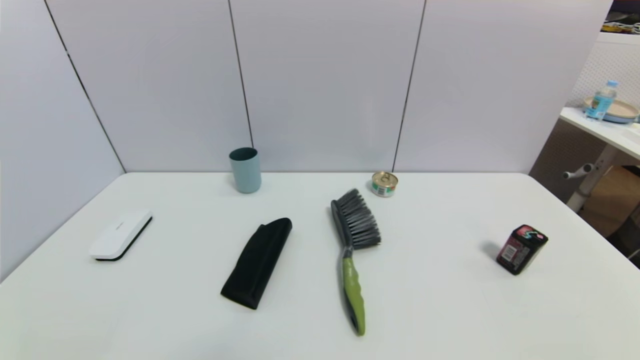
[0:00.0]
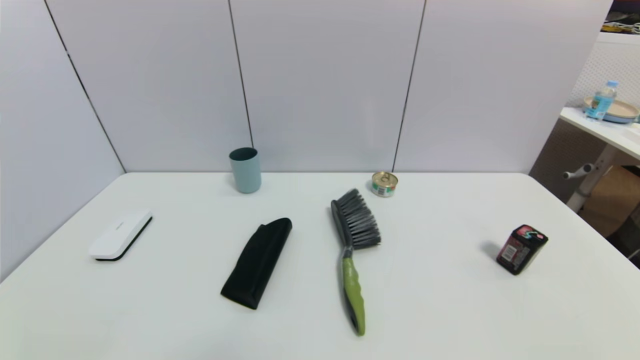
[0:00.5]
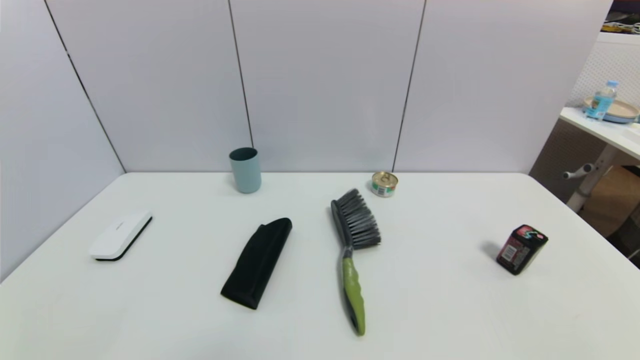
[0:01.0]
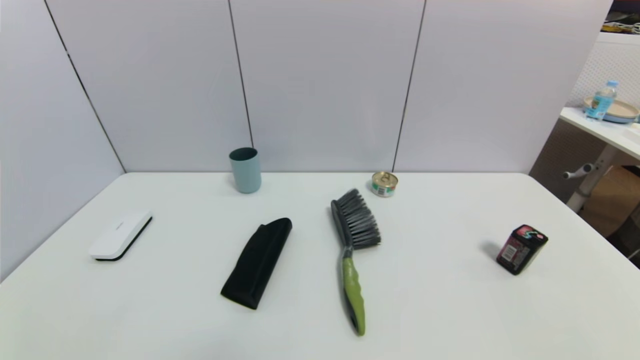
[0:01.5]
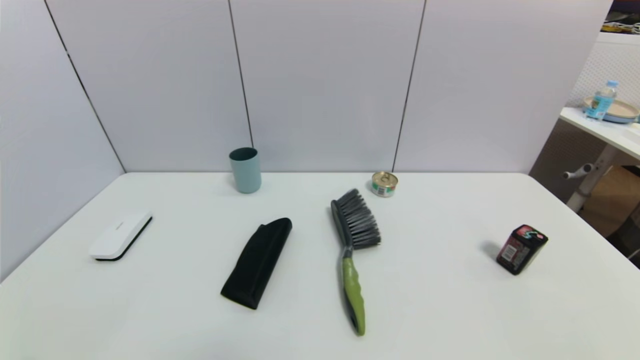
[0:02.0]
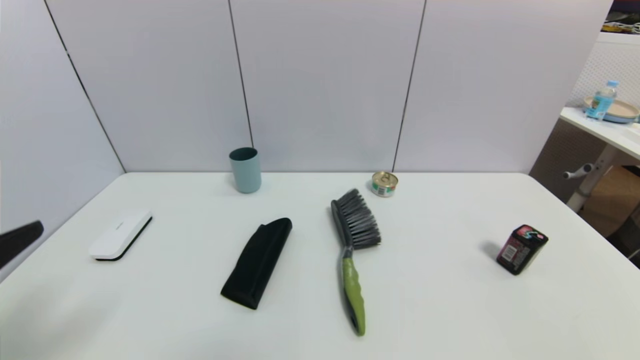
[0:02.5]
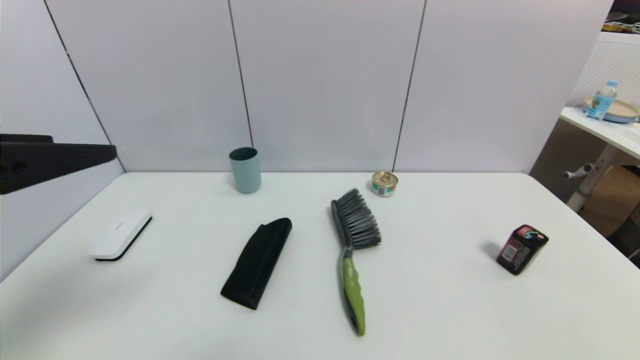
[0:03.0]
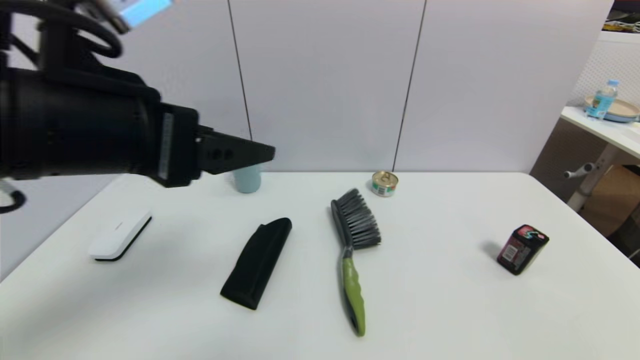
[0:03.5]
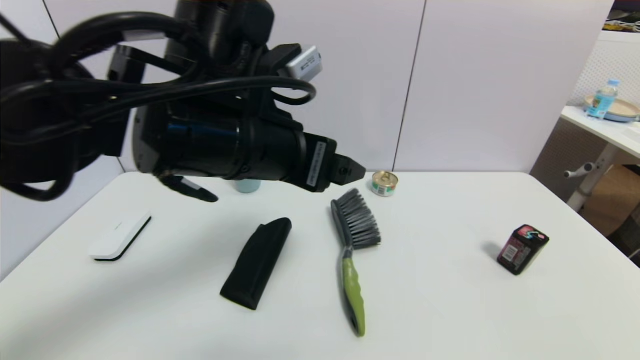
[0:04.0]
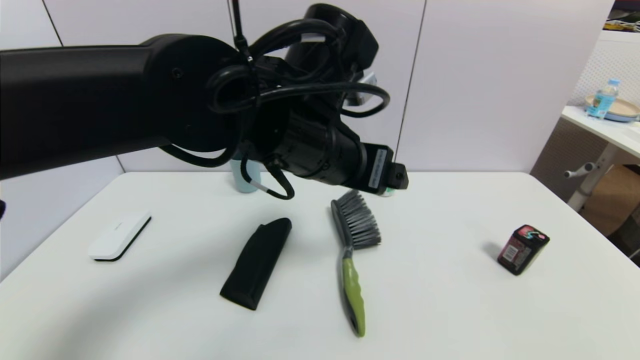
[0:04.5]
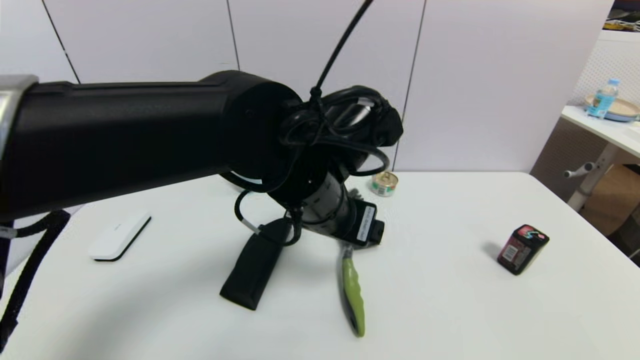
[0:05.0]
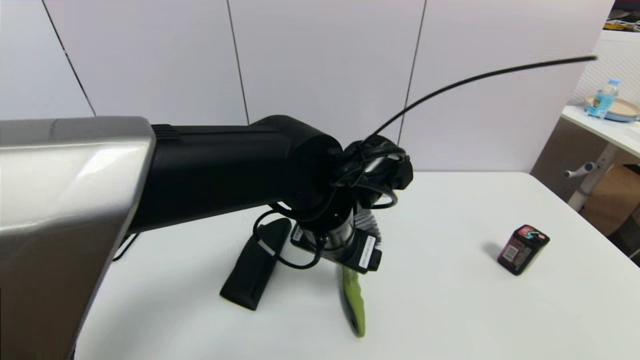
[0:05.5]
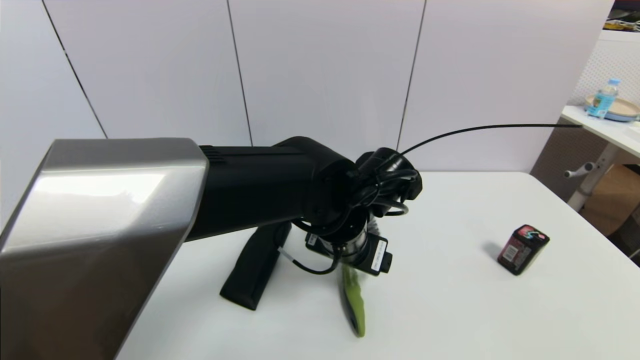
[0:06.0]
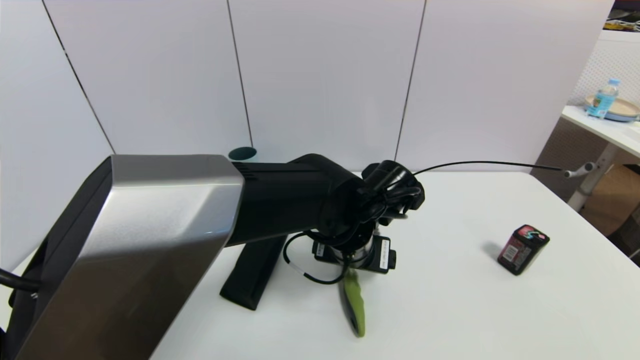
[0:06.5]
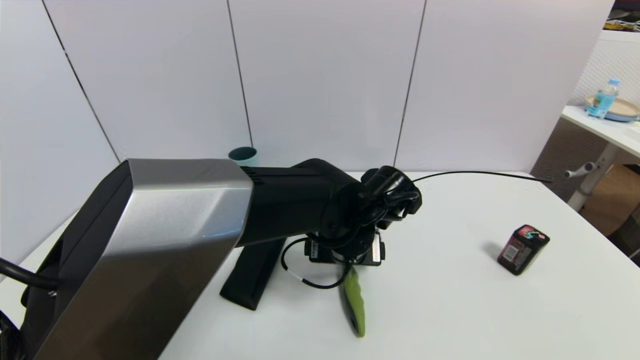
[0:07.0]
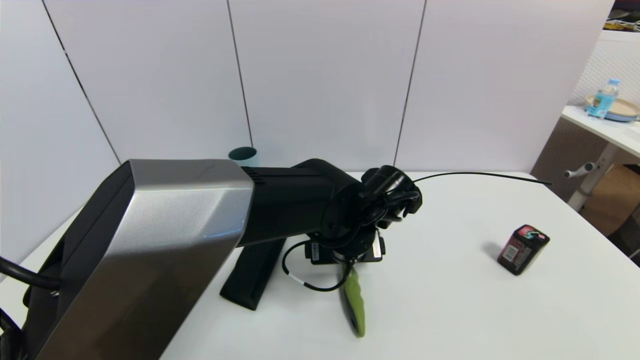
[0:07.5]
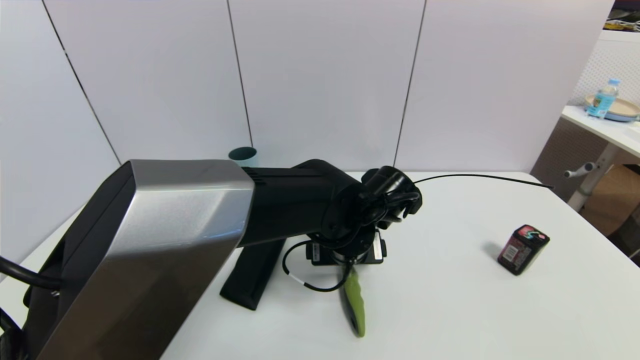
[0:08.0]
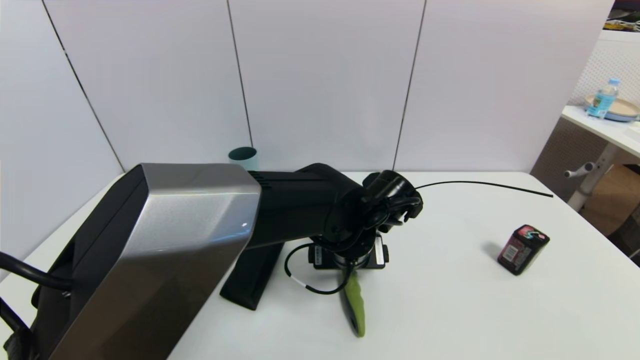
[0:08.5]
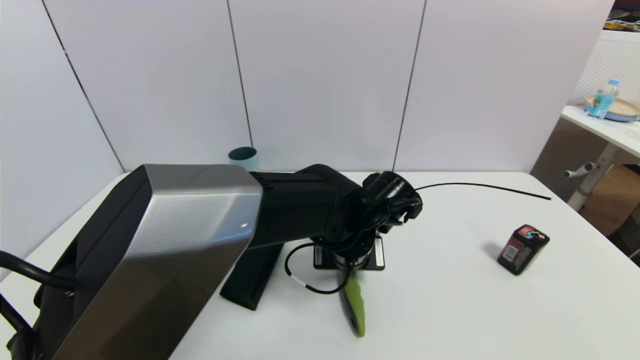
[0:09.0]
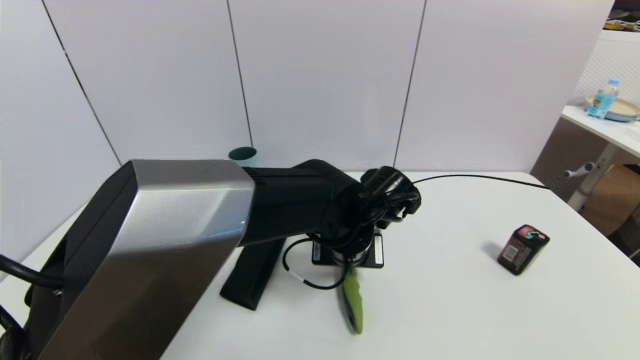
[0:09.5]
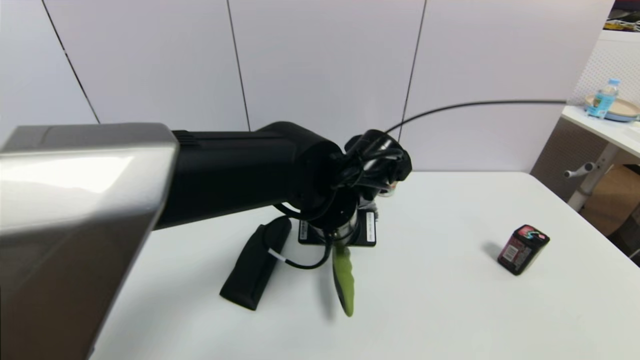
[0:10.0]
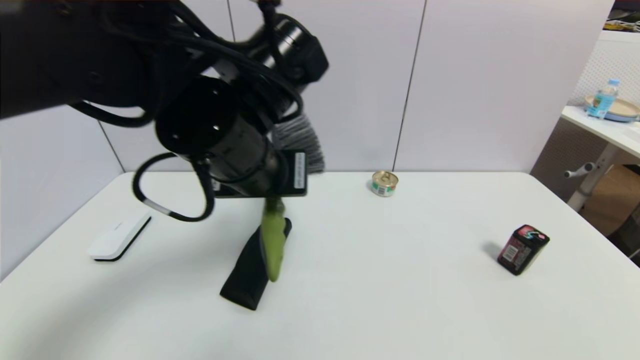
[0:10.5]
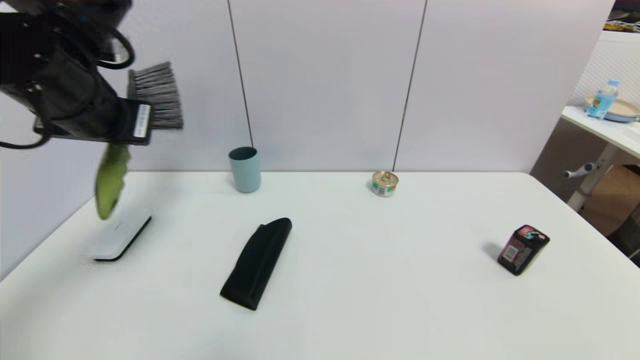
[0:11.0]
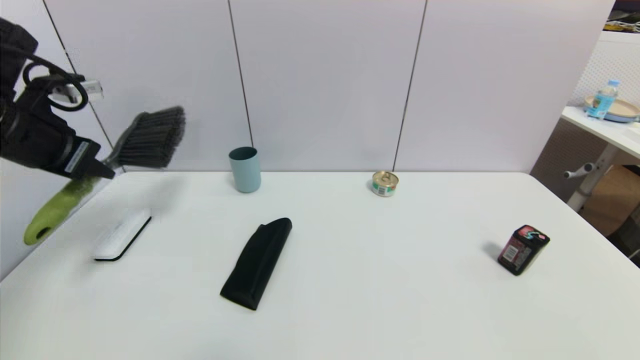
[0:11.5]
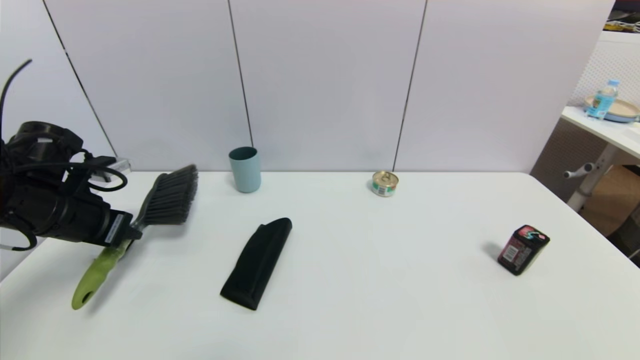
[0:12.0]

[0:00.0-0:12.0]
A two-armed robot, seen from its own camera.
Task of the whole recording: put the brush in the designated position.
Step, 2.0 to 9.0 s: Grasp the brush with left gripper.
2.0 to 4.0 s: The left gripper shifts approximately 40 cm to the right, forward and upward.
4.0 to 6.0 s: The left gripper heads downward and to the right, covering some 15 cm.
8.0 to 10.0 s: The left gripper is displaced upward by approximately 5 cm, and closes.
10.0 to 12.0 s: The left gripper goes about 35 cm to the left.

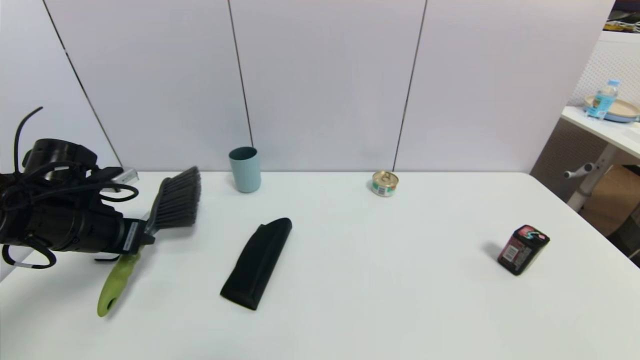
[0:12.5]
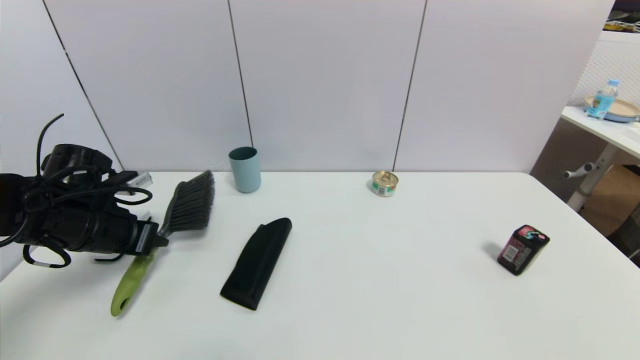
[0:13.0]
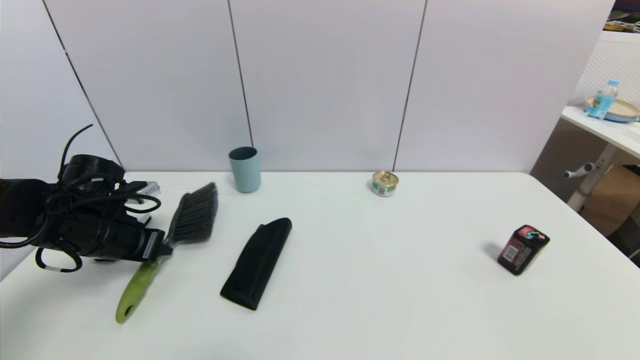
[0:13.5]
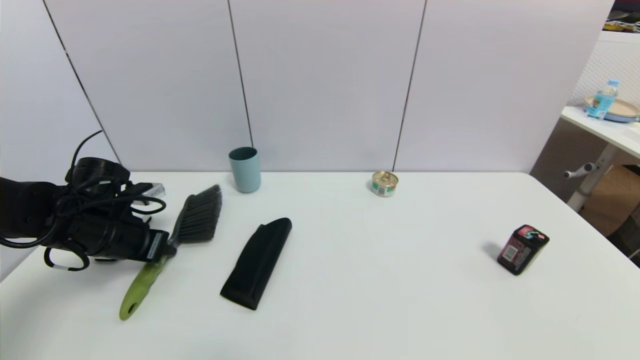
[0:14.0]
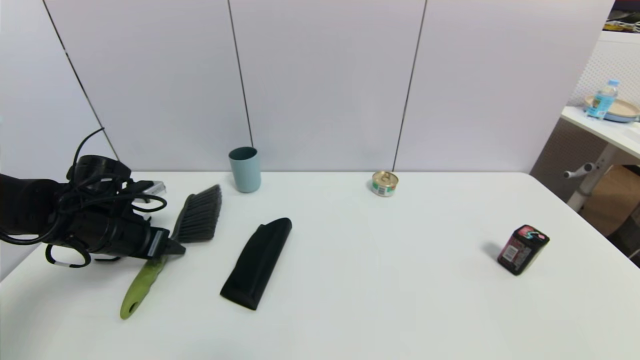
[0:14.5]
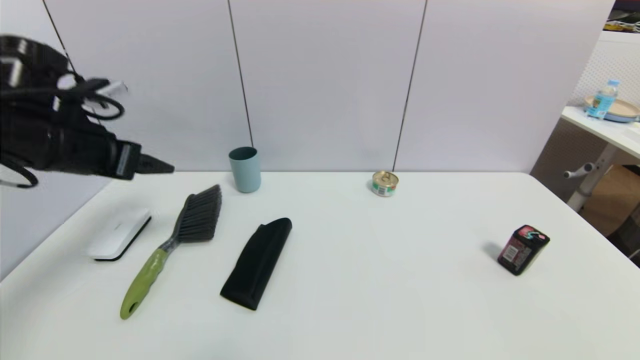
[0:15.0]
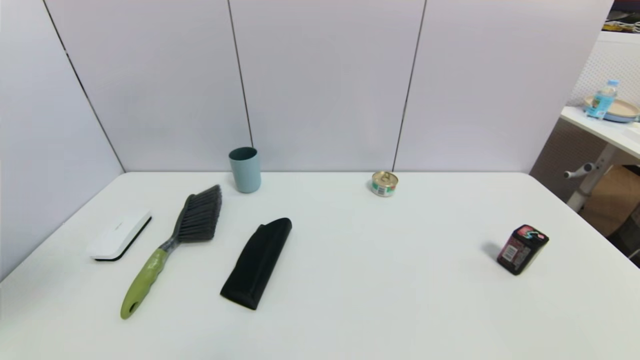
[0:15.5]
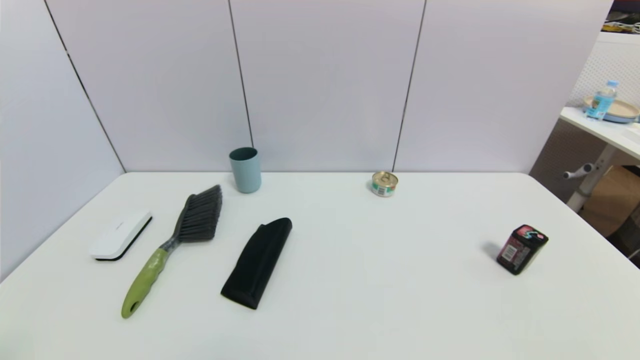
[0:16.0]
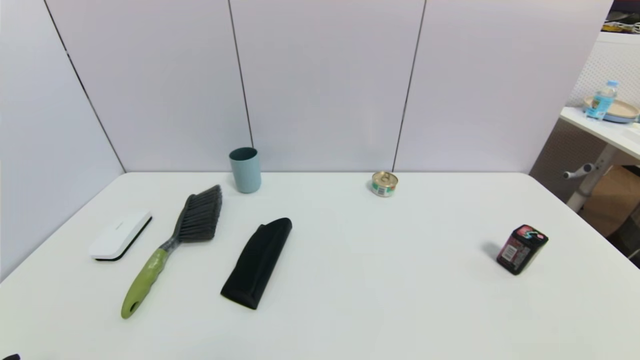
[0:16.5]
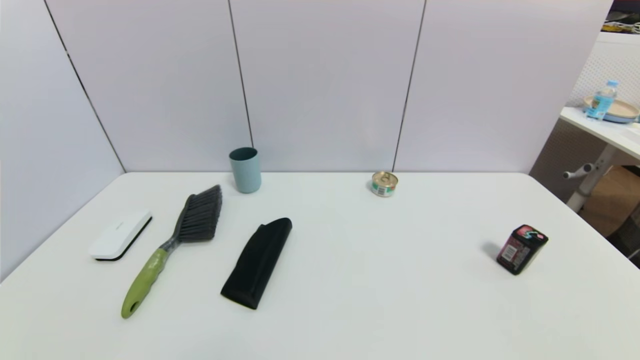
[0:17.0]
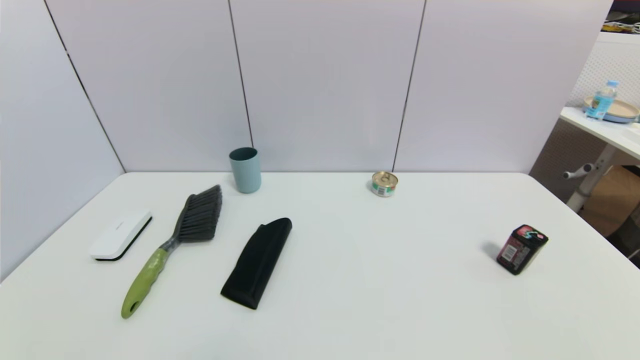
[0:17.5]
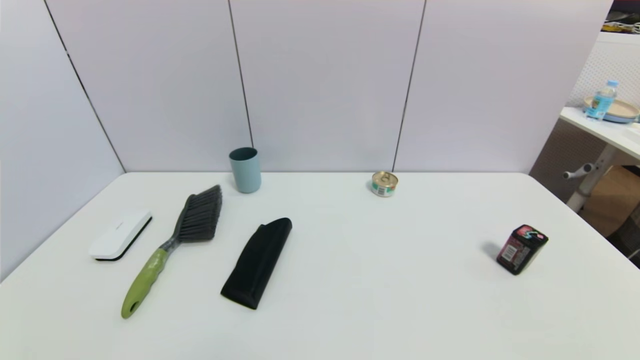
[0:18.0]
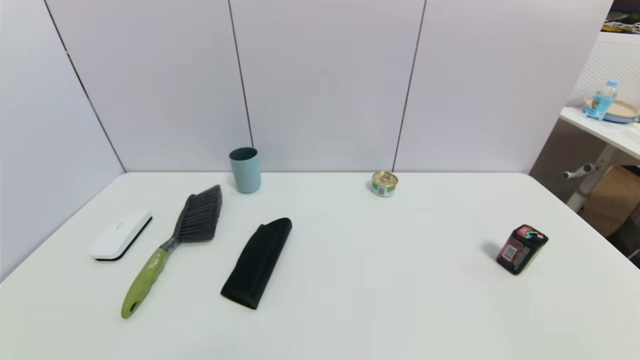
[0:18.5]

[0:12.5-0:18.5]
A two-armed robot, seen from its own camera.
Task of the whole recording: put the brush in the designated position.
12.5 to 14.5 s: The left gripper opens up.
14.5 to 16.5 s: The left gripper goes approximately 30 cm backward, and opens up.

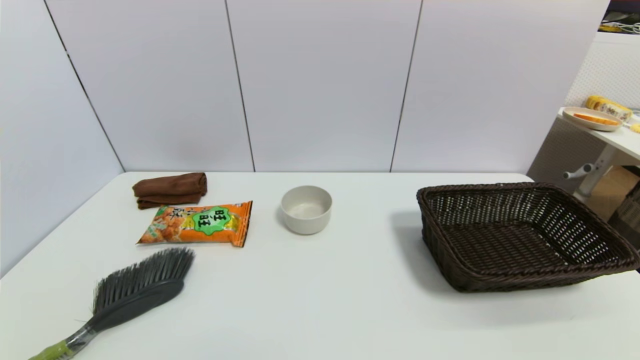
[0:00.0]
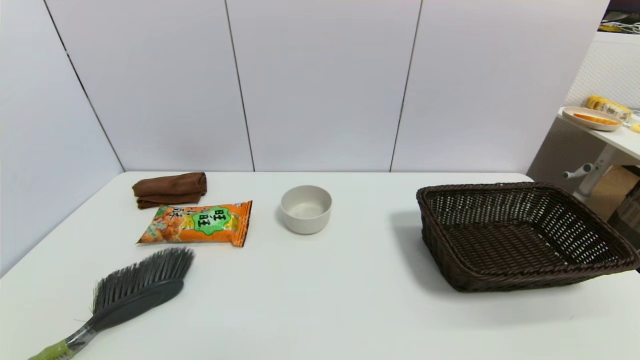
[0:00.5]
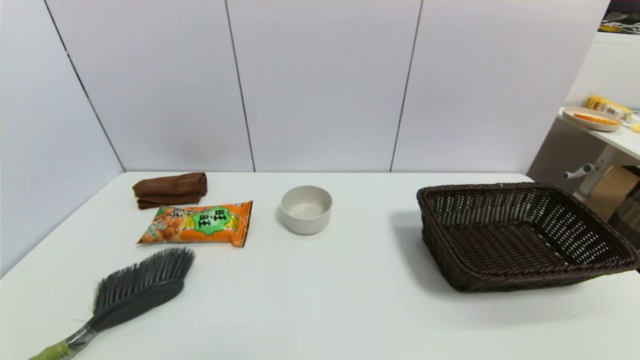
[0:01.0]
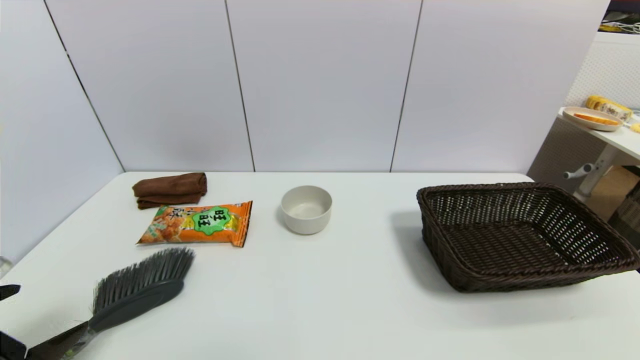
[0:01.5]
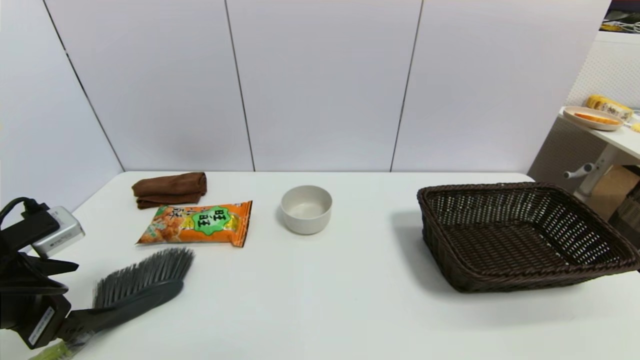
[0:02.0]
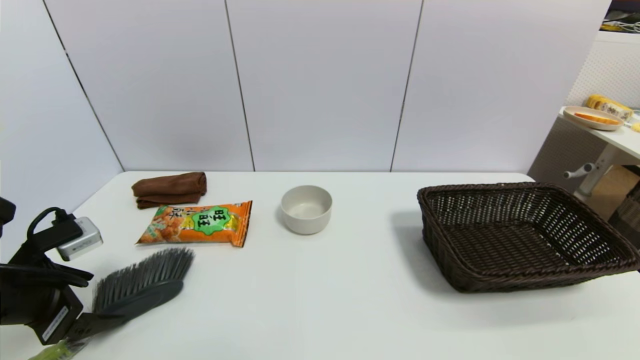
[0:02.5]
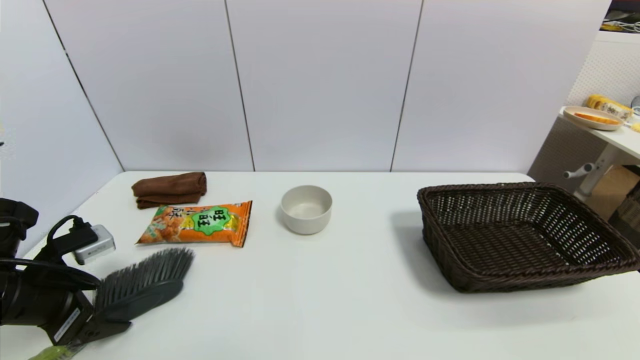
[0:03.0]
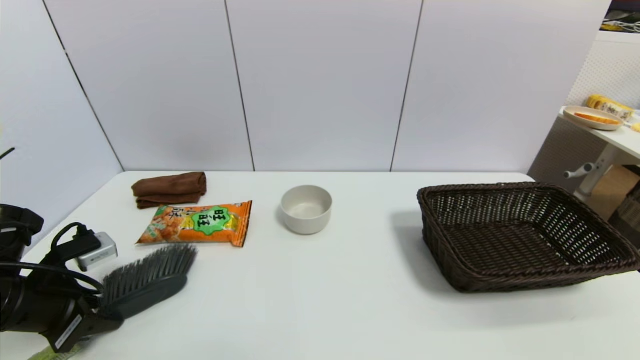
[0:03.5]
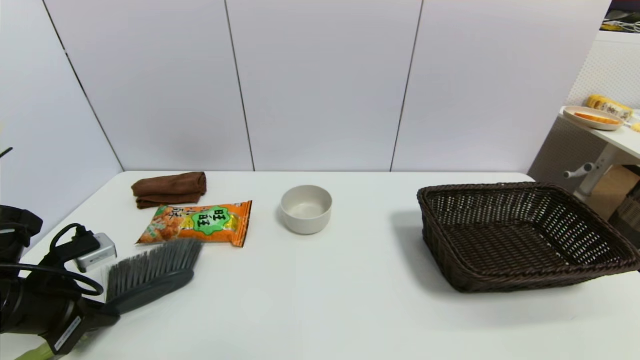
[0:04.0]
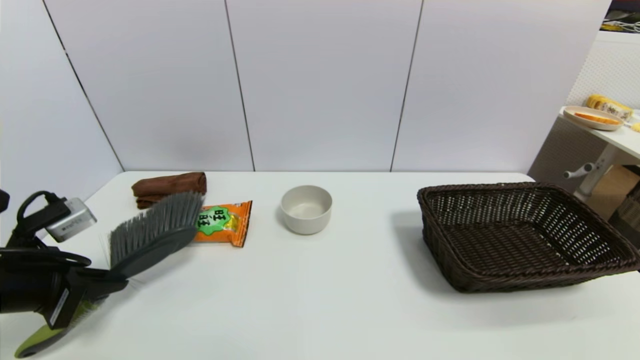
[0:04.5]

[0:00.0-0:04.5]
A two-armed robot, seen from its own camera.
Task of the whole recording: put the brush in the designated position.
Step, 1.5 to 3.5 s: Grasp the brush with left gripper.
0.0 to 2.0 s: The left gripper travels forward and upward by about 20 cm.
2.0 to 4.5 s: The left gripper closes up.
